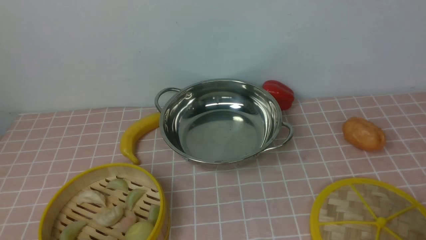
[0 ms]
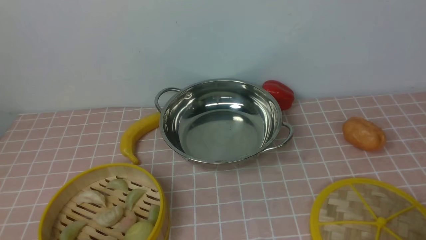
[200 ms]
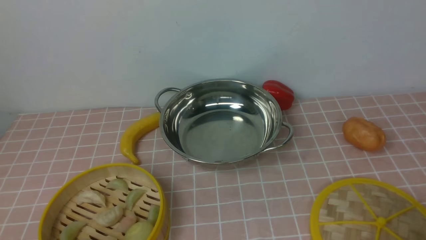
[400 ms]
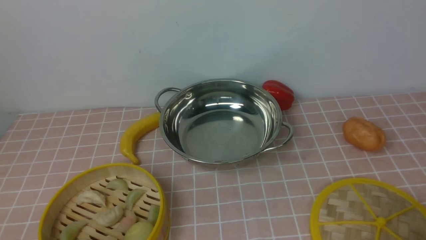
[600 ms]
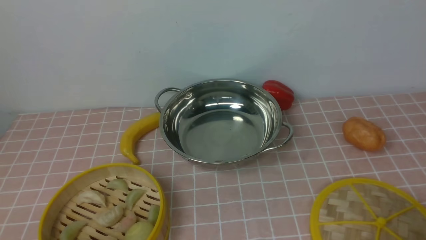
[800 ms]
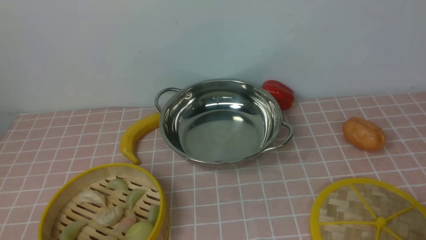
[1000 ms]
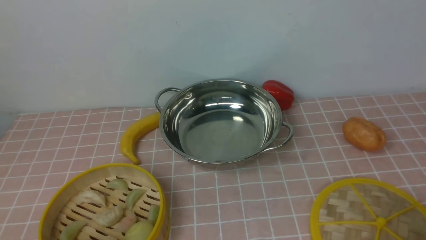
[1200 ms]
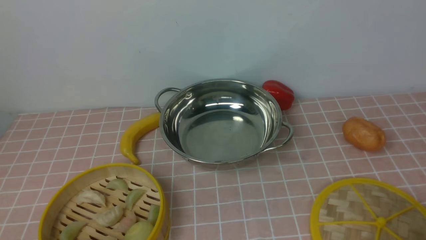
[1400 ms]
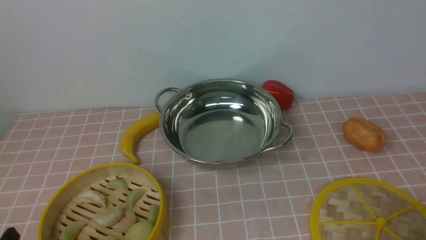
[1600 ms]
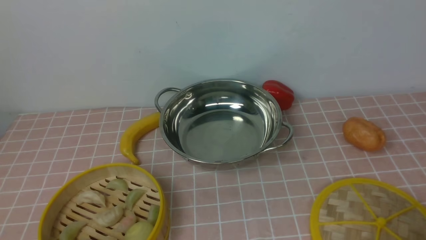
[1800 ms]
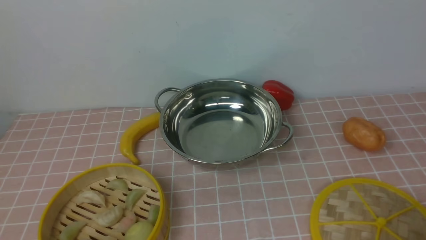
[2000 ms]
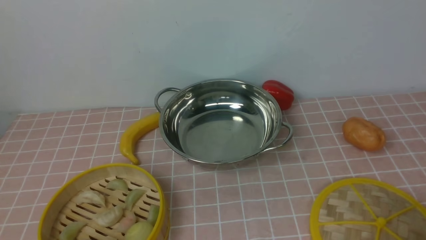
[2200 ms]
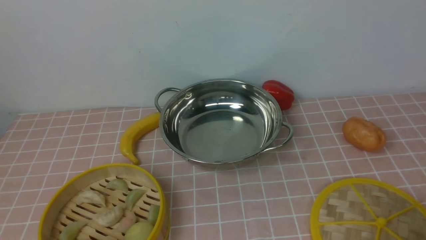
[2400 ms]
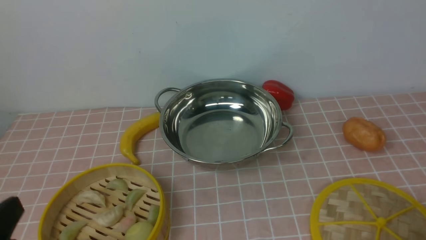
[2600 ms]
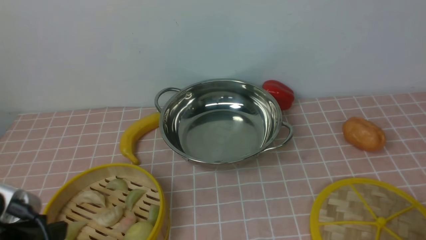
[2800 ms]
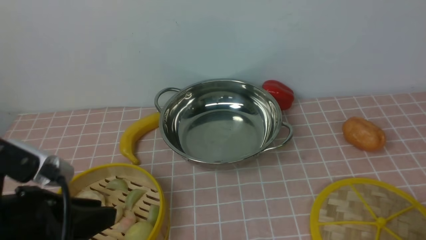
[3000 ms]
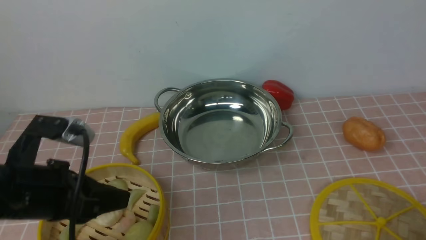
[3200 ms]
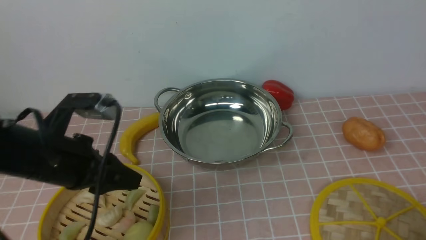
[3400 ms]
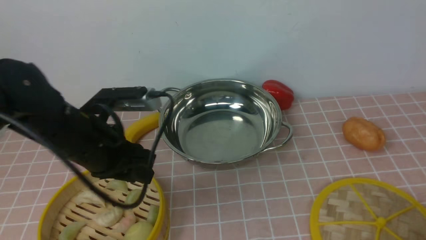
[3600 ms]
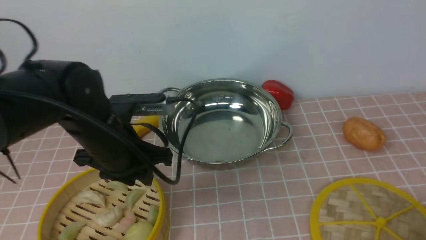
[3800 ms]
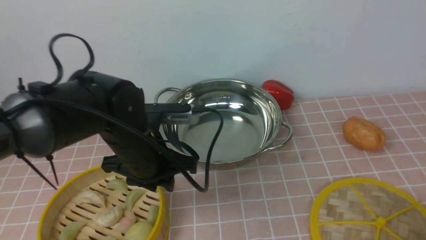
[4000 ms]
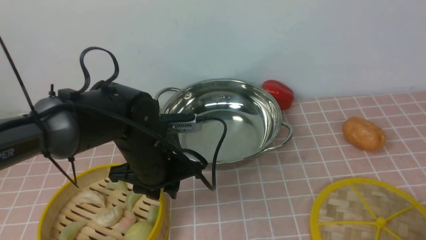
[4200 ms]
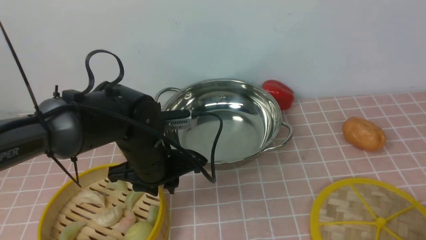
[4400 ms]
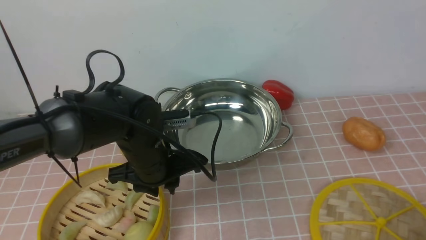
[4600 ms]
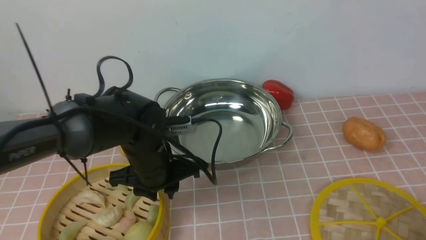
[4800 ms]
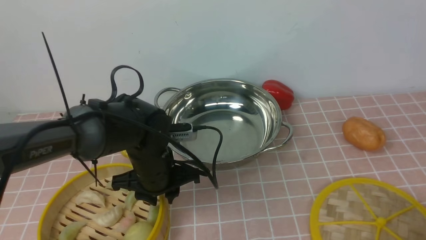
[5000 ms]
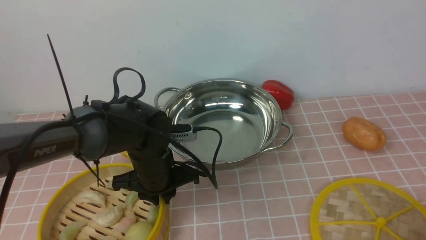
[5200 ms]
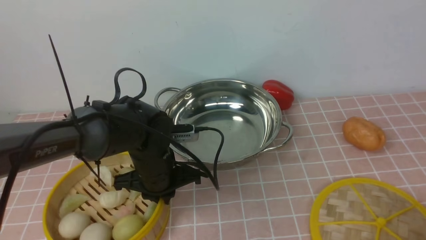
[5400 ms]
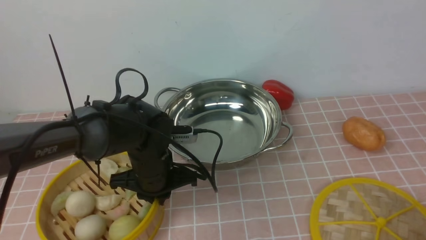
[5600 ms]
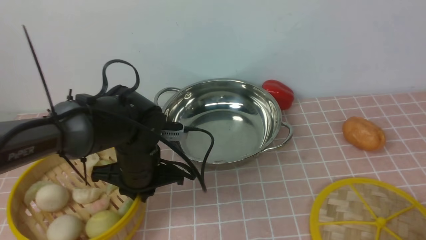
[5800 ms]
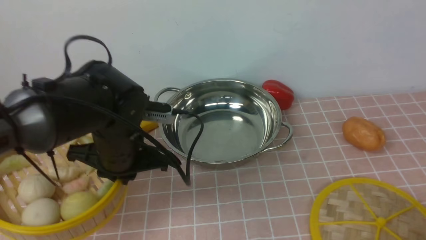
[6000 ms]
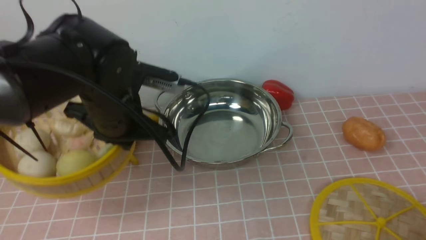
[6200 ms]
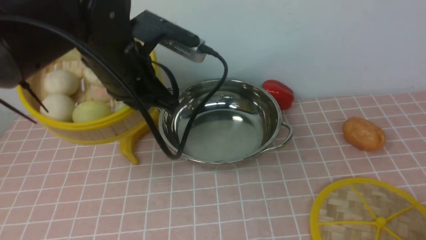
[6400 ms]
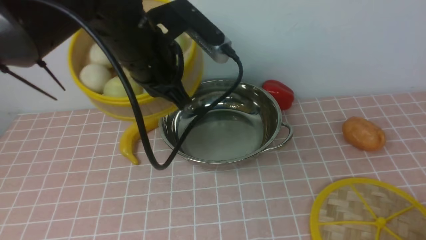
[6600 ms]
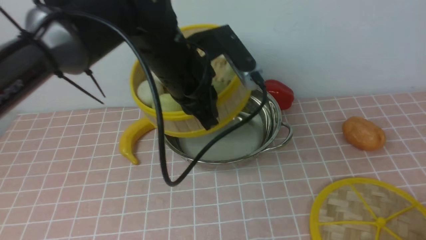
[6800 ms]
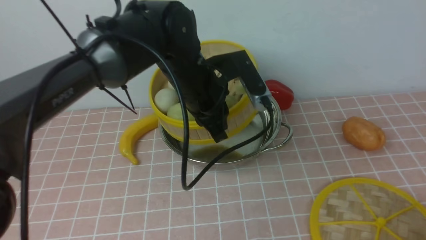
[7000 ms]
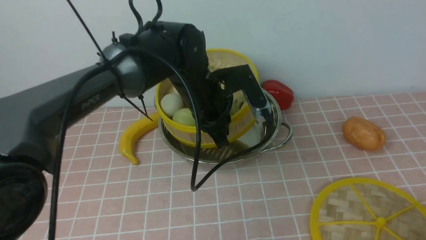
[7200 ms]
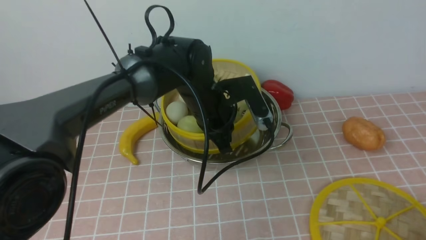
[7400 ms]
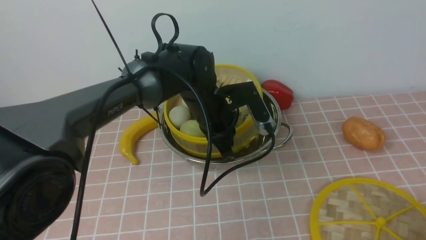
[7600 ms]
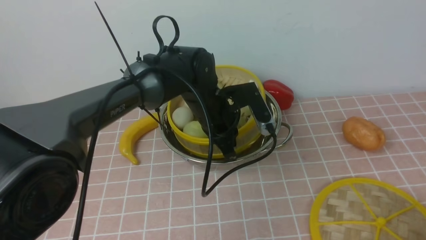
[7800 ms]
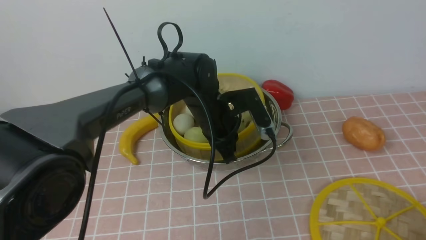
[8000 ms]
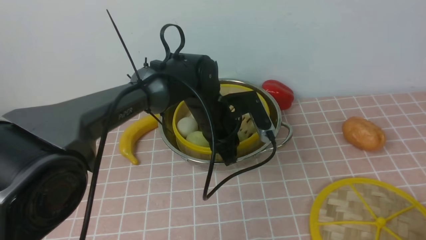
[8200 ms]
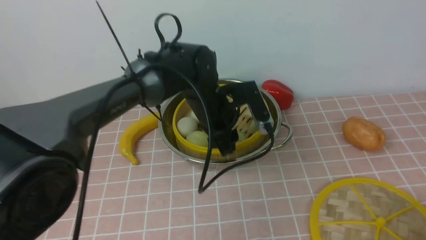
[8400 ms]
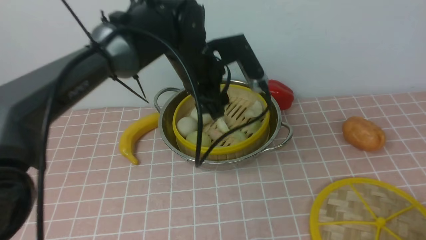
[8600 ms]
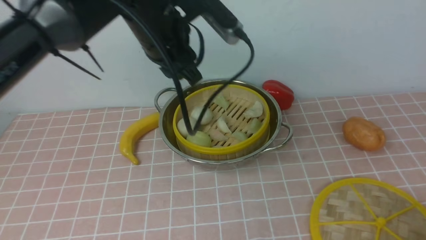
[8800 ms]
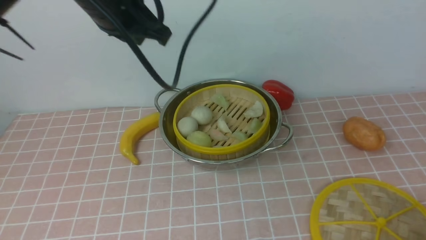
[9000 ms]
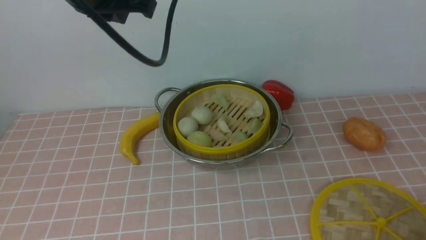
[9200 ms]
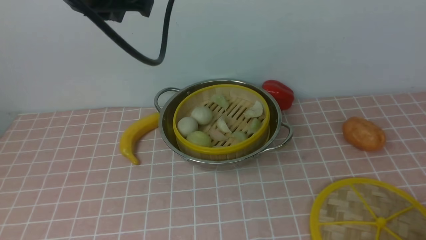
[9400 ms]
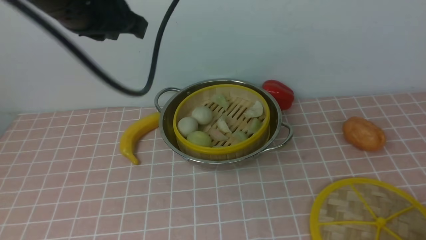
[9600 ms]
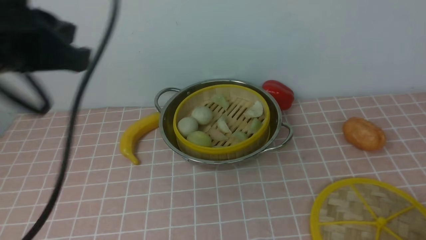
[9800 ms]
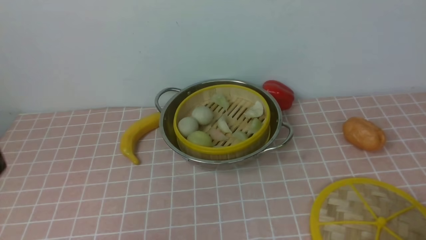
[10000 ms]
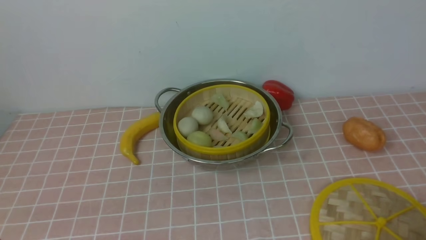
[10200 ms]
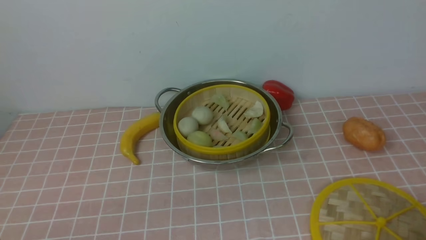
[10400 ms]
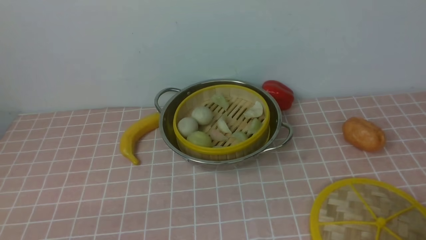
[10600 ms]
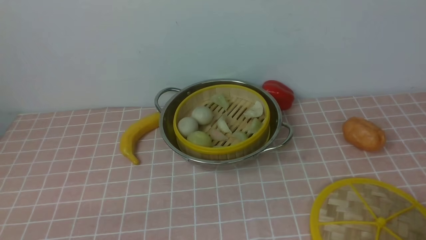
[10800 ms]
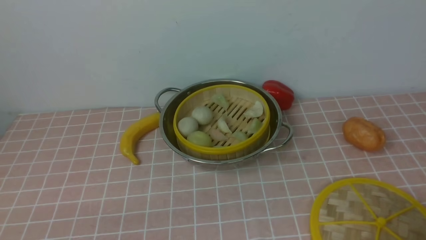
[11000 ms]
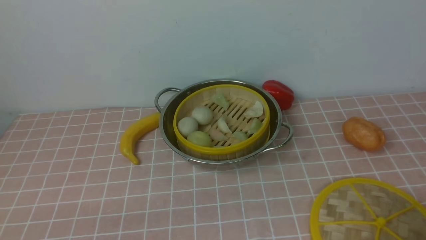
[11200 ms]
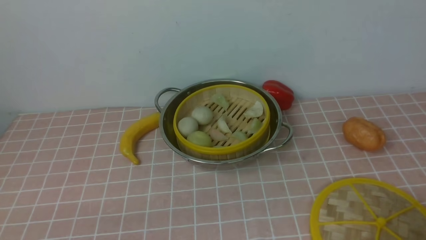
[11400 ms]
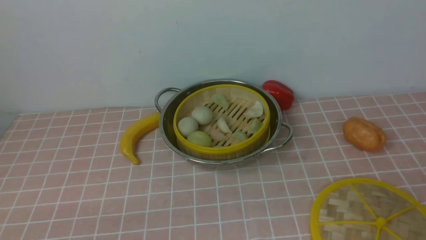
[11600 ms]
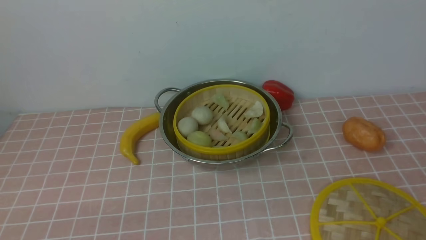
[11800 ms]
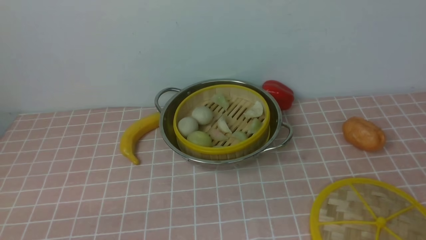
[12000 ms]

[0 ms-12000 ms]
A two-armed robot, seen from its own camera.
Task of the whole recording: place the steamer in the pot on the pink tablecloth, and put the lid on the steamer.
Step, 0 ms to 5800 ms: use the left arm to lift the steamer closest to it.
Step, 6000 ms to 8400 ms: use the left arm to put the steamer into the iron steamer pot in the middle.
1600 ms to 3000 ms: The left gripper travels upward and forward by some 15 cm.
3000 ms to 4400 ms: The left gripper moves forward, to the right and downward, about 20 cm.
4400 ms to 6000 ms: The left gripper ends up some 5 cm from where it was, and closes up.
6000 ms to 7600 ms: The left gripper is displaced to the right and forward by roughly 15 cm, and goes upward and returns, about 10 cm each way.
7600 ms to 9000 ms: The left gripper moves upward and to the left, about 25 cm, and opens, then closes again.
9000 ms to 10400 ms: The left gripper heads backward, downward and to the left, covering roughly 40 cm.

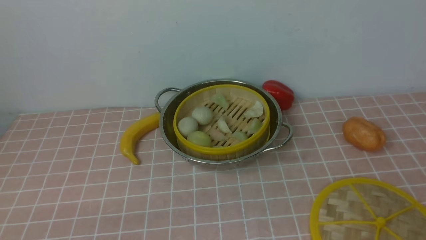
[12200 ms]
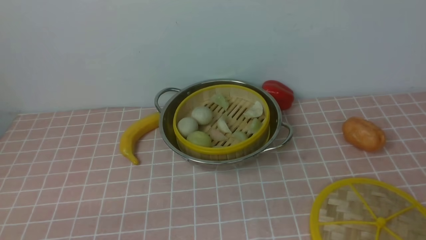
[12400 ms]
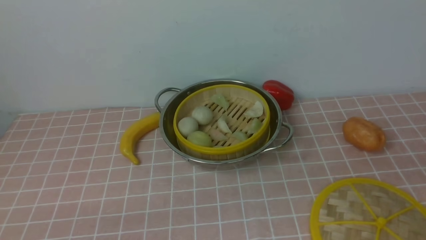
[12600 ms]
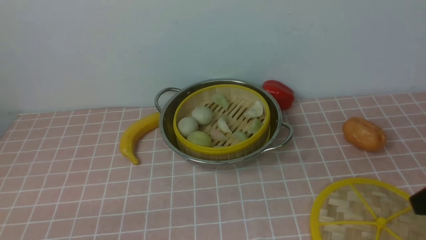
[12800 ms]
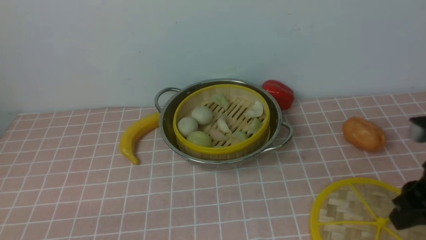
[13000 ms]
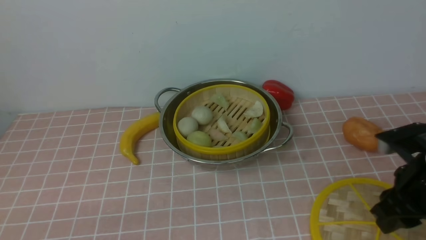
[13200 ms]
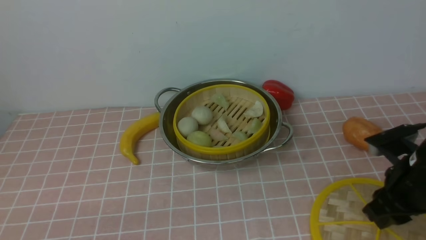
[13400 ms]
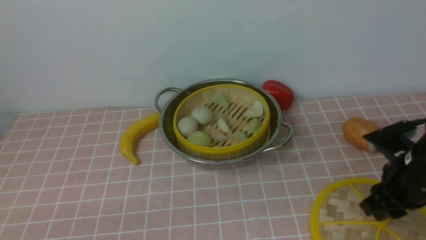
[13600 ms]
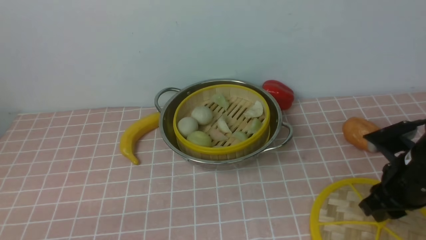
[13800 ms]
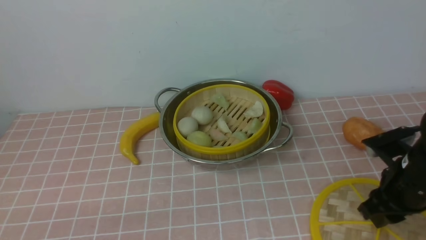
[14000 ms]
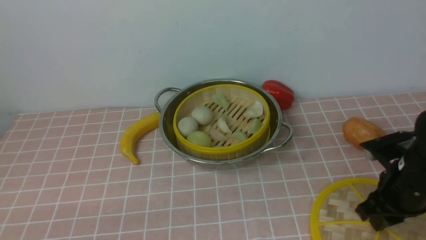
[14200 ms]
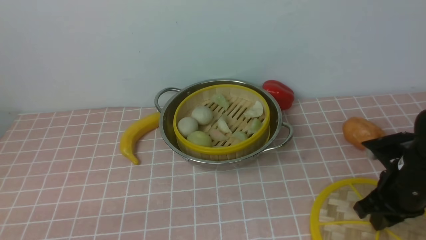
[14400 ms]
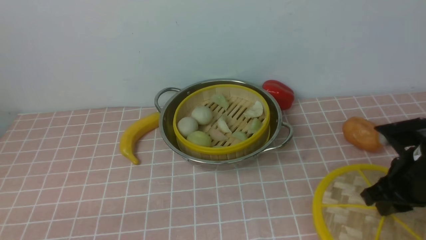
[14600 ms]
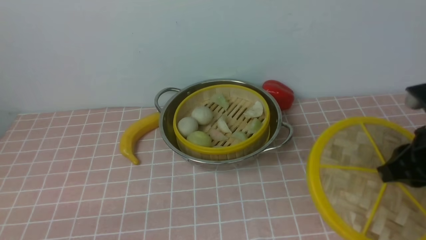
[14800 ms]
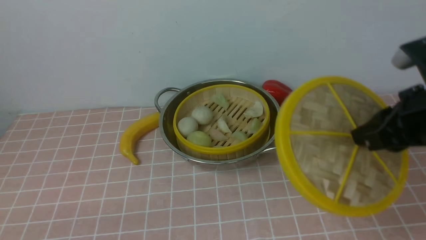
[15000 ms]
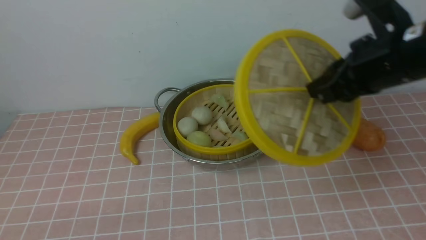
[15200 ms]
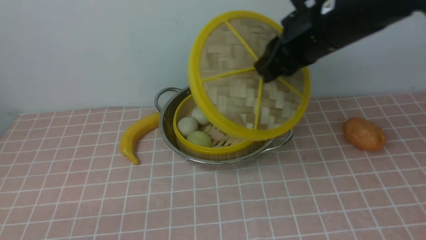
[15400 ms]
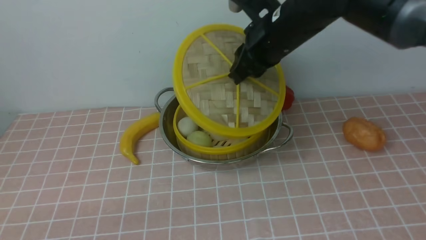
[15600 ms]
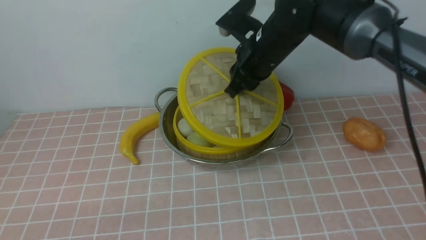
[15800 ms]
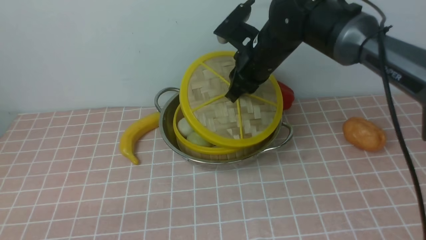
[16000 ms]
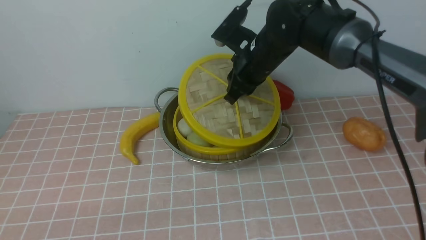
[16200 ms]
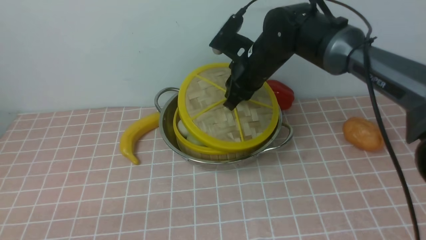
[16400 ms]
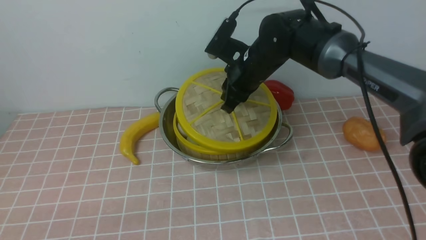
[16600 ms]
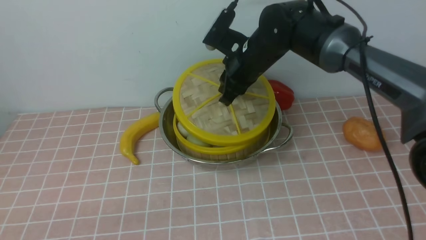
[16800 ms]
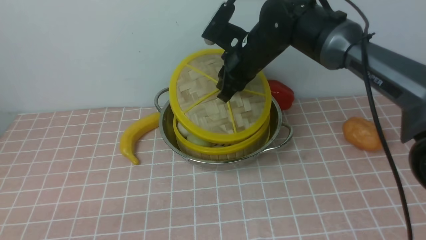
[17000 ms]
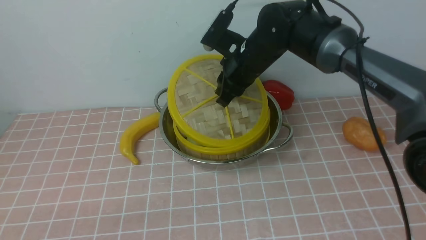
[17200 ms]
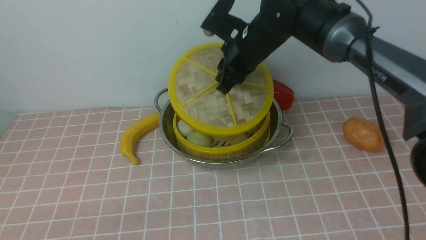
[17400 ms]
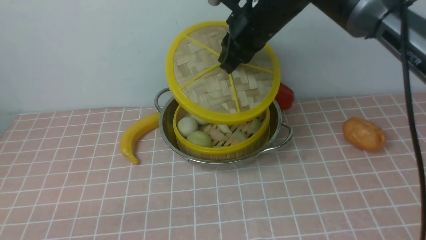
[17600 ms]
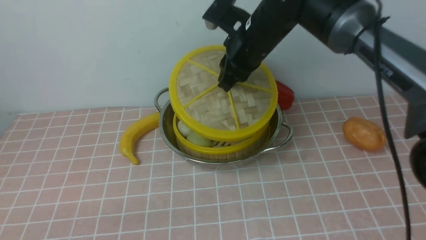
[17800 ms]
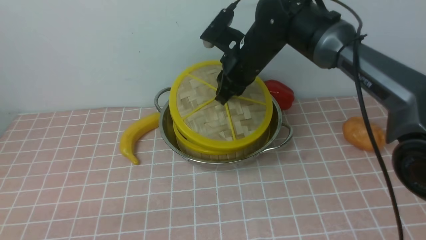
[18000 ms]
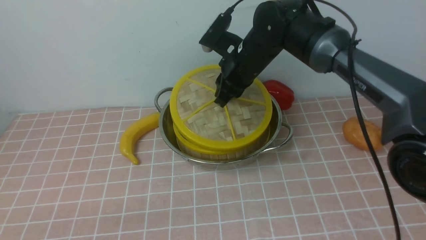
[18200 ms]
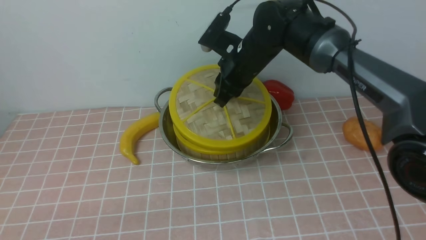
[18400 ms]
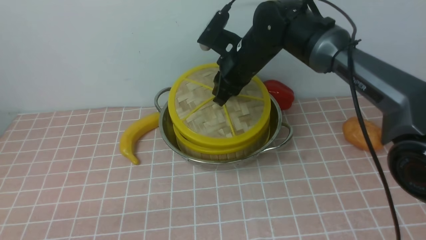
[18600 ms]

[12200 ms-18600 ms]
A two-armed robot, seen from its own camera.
Task of the whole recording: place the steamer in the pot on the pink tablecloth, and put the lid on the steamer.
Step, 12200 ms to 14400 ms: use the right arm to lift the lid of the steamer.
12200 ms to 13800 ms: The right gripper moves forward and downward, some 35 cm.
13800 ms to 15400 ms: The right gripper heads upward, to the left and forward, covering approximately 25 cm, and closes its fingers.
15400 ms to 17000 ms: The right gripper shifts roughly 15 cm forward, downward and to the left.
17000 ms to 18600 ms: The grippers move only a little.
